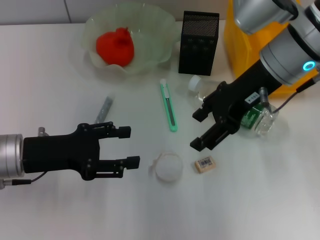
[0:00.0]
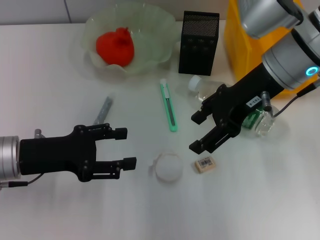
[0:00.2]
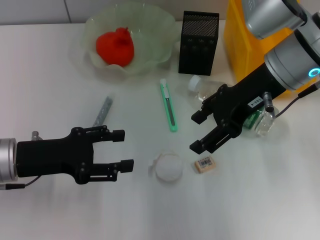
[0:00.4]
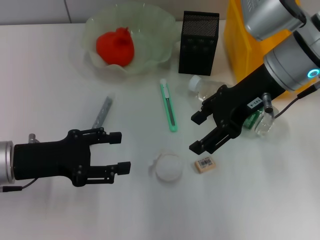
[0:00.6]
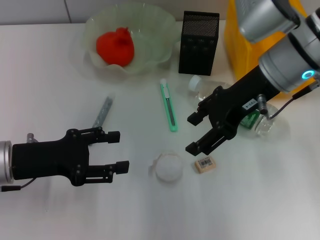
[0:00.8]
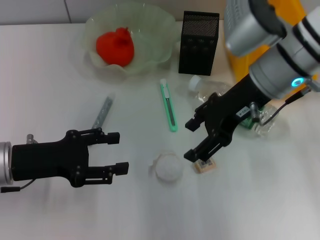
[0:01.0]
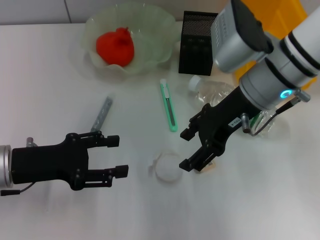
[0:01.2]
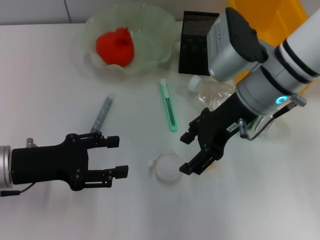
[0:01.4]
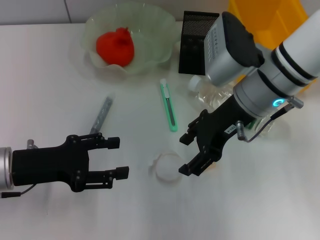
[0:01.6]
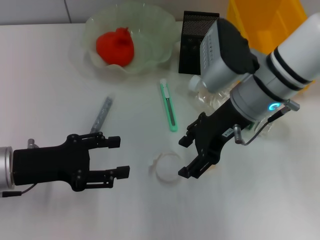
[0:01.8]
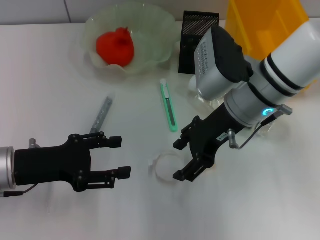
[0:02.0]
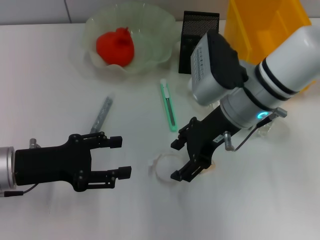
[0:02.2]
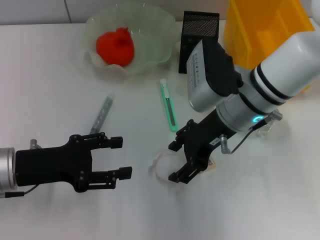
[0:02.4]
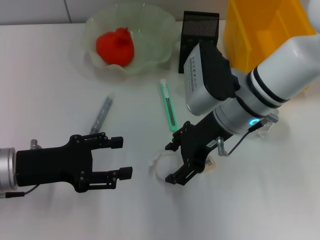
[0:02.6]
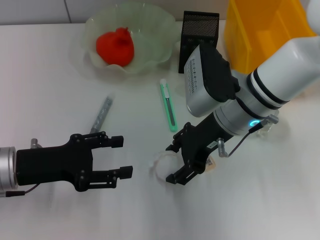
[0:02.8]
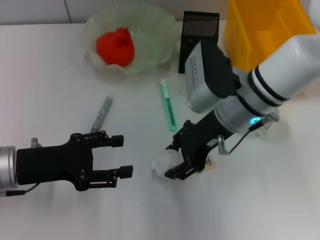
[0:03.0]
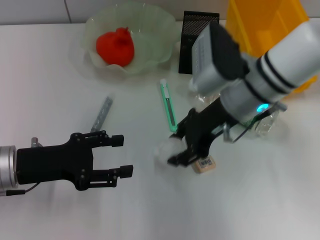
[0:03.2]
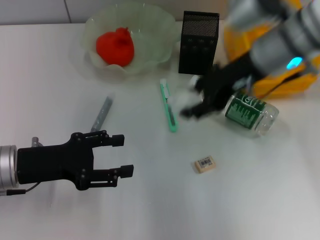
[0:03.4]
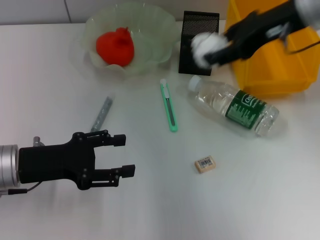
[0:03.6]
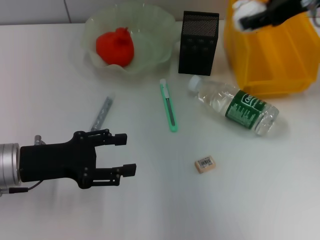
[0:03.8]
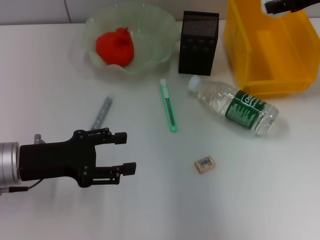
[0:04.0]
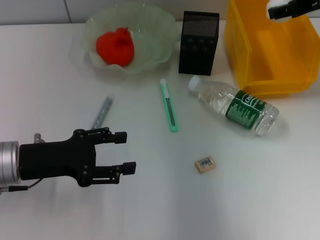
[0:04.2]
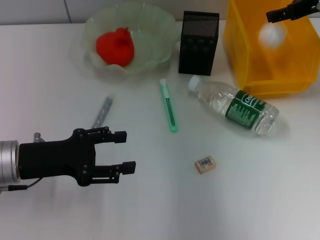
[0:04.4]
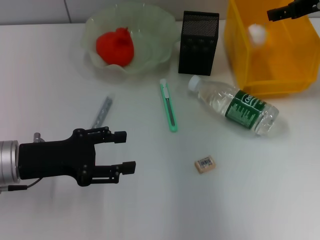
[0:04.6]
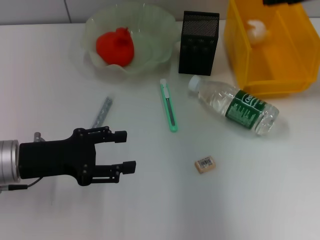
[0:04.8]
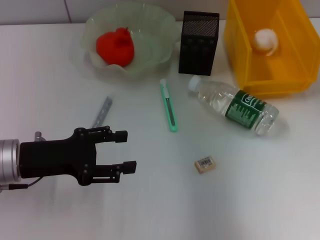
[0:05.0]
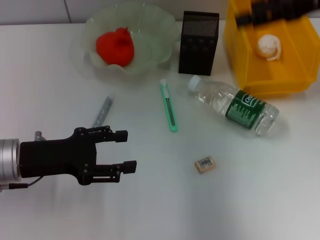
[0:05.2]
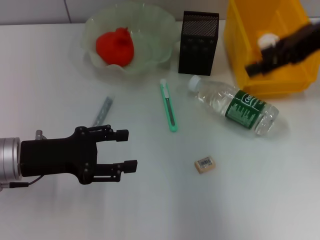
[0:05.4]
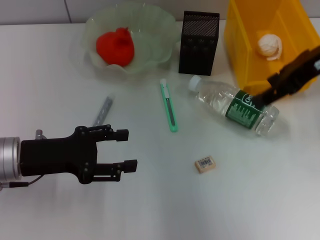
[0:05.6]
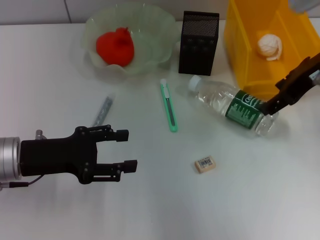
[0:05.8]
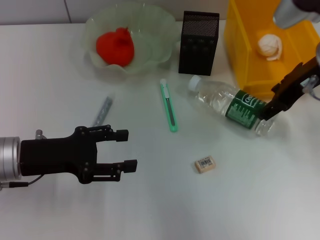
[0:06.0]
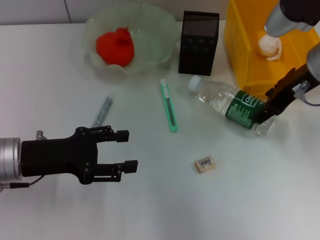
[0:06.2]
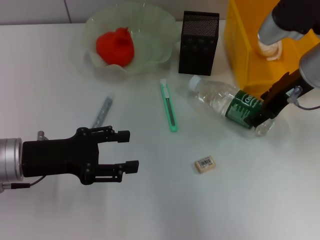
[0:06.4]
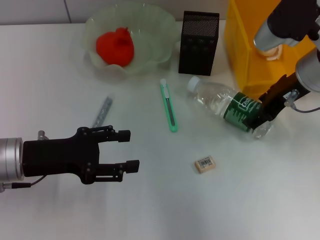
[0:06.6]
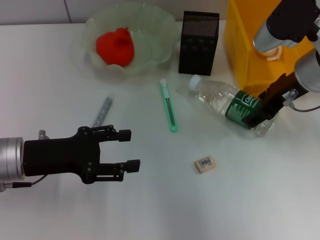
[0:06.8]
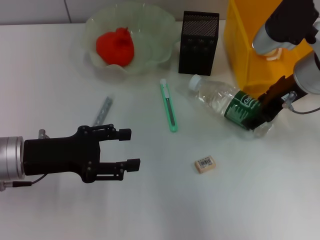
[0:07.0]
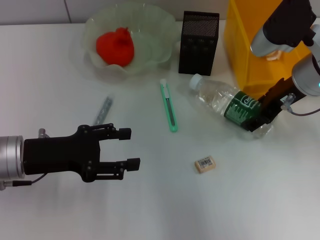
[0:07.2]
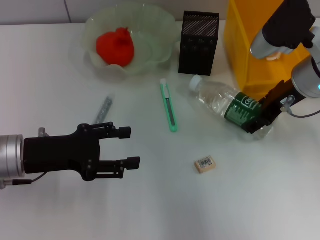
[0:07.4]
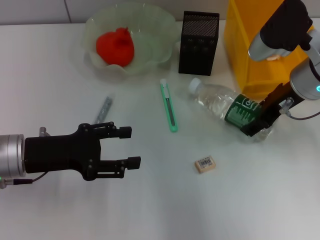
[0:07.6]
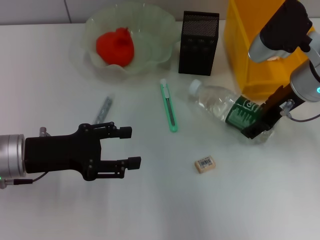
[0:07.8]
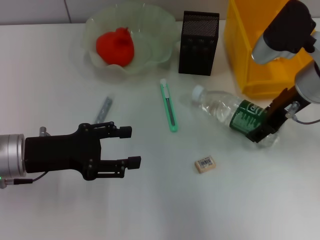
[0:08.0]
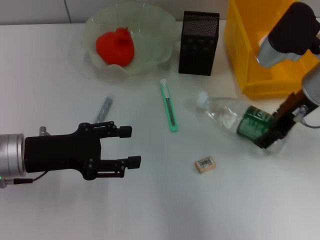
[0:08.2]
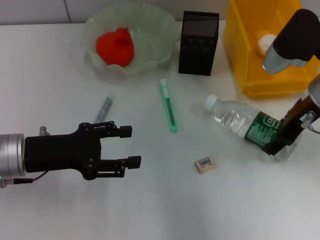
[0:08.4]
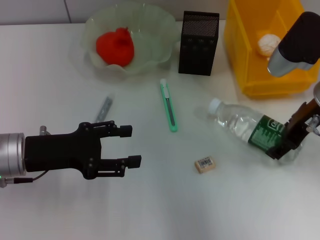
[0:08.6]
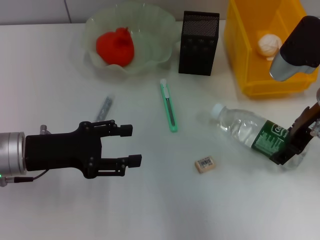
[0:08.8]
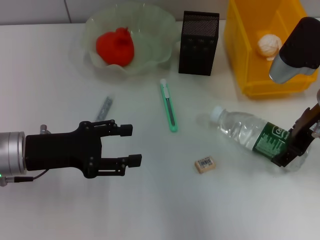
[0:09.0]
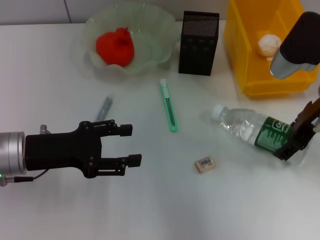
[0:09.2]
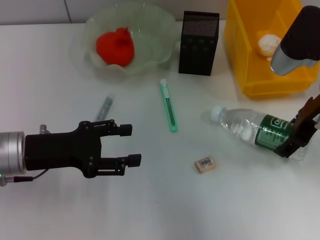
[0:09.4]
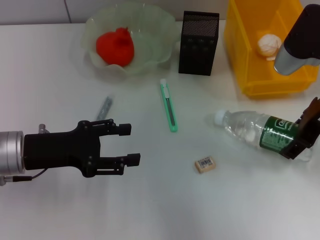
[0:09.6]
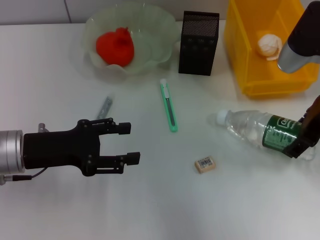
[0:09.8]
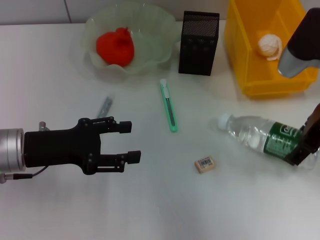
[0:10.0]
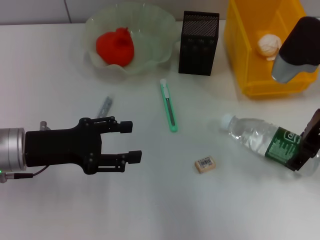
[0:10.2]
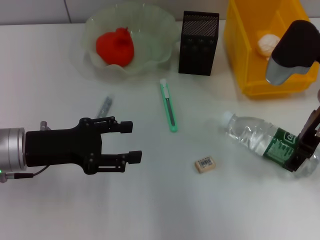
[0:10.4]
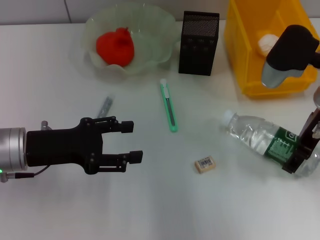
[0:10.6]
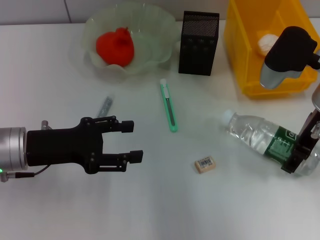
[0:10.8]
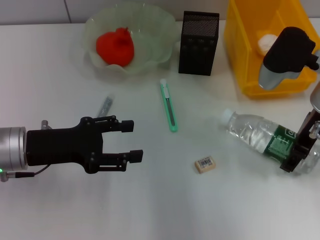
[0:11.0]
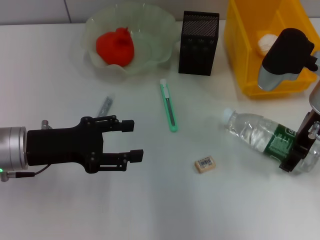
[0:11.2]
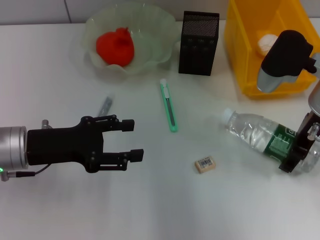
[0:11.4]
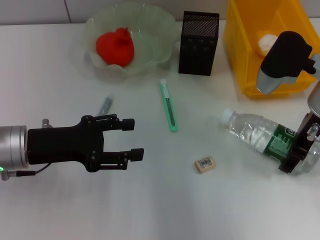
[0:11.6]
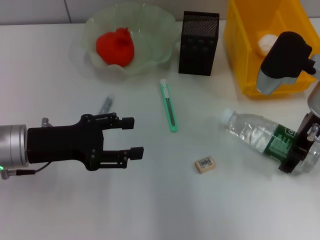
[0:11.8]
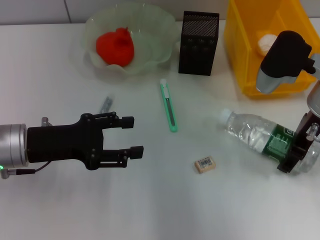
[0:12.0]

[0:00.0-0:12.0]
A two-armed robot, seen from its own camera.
Step, 0:00.0 to 0:02.8: Grab the paper ball with the right hand.
Step, 0:03.0 to 0:07.2: Place the paper ball into the trash can with the right hand.
Step, 0:07.4 to 0:07.6: Grab the water bottle with the right hand.
0:00.0 to 0:01.6: The right gripper shifts by about 5 cm.
0:01.6 to 0:03.0: The grippers make only small movements.
0:03.0 to 0:04.4: The right gripper shifts some 20 cm to the right, upward and forward.
0:04.4 to 0:06.0: The right gripper shifts some 10 cm backward and to the left.
0:06.0 to 0:07.6: The right gripper moves downward, approximately 5 cm.
0:07.6 to 0:12.0: There are only small adjustments of the grippers.

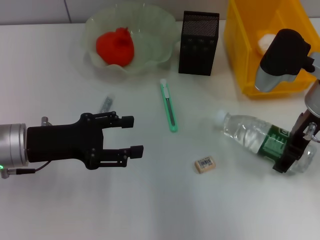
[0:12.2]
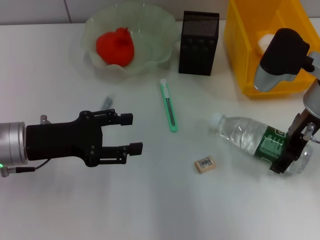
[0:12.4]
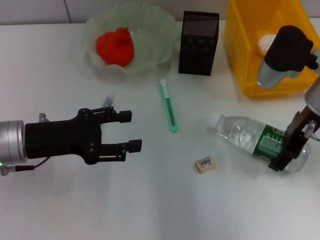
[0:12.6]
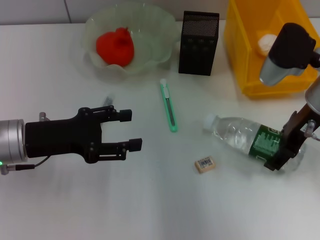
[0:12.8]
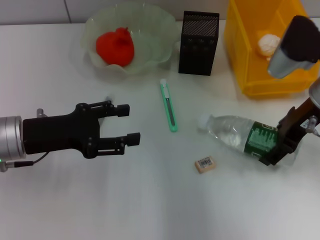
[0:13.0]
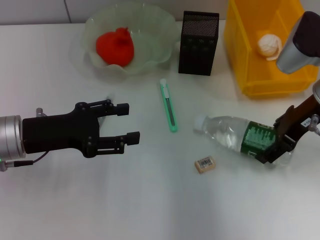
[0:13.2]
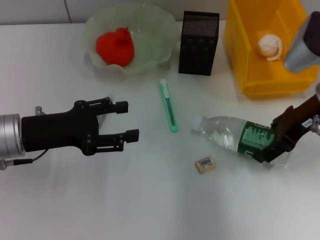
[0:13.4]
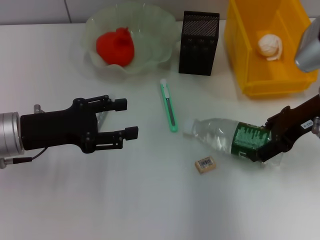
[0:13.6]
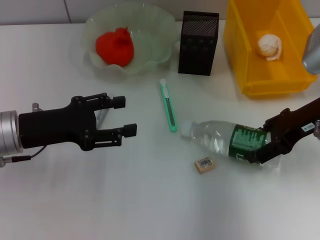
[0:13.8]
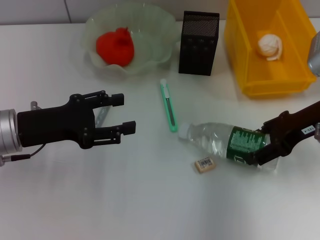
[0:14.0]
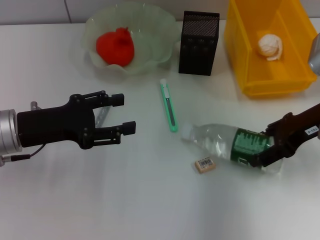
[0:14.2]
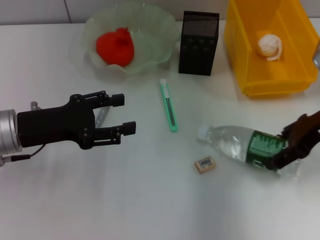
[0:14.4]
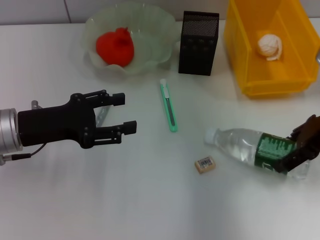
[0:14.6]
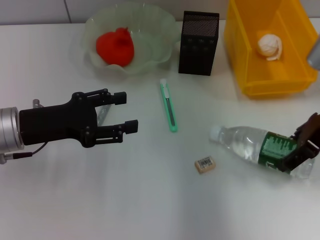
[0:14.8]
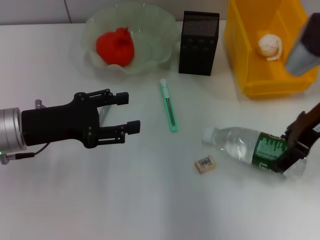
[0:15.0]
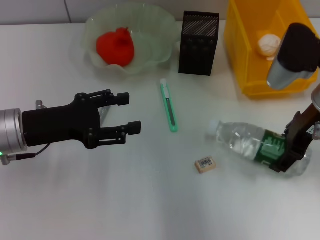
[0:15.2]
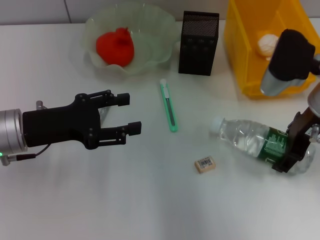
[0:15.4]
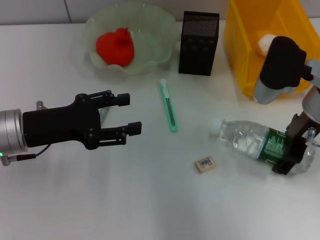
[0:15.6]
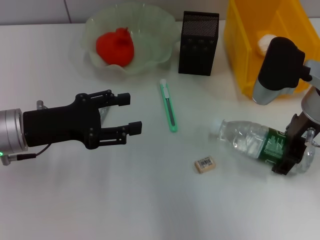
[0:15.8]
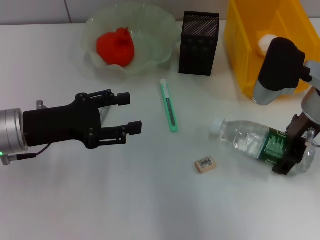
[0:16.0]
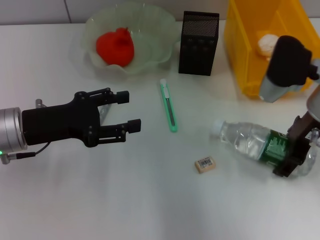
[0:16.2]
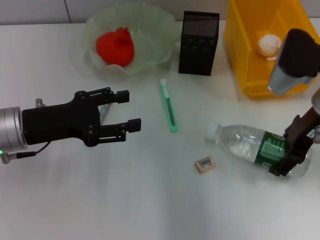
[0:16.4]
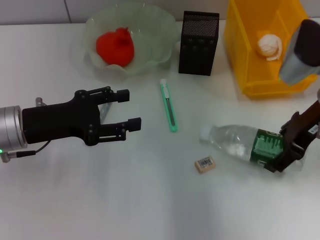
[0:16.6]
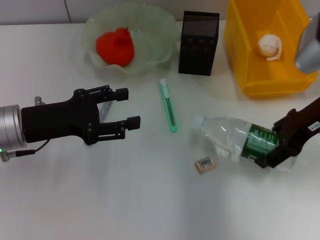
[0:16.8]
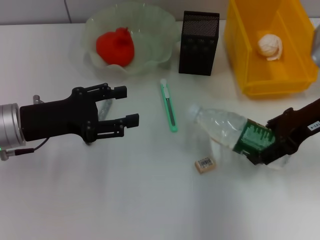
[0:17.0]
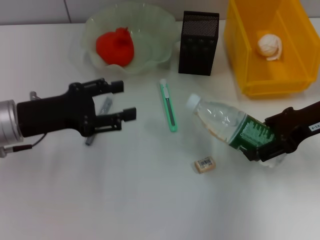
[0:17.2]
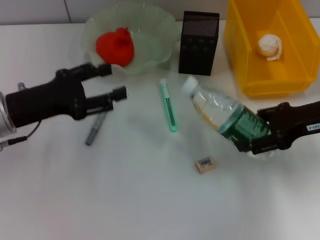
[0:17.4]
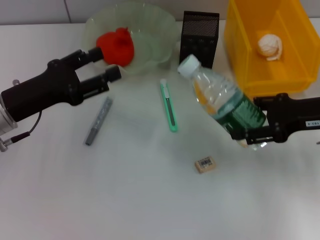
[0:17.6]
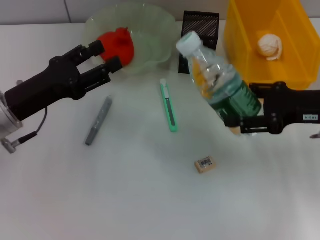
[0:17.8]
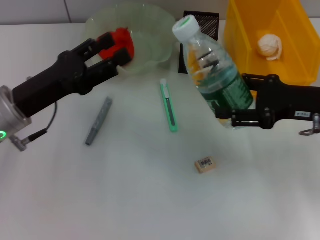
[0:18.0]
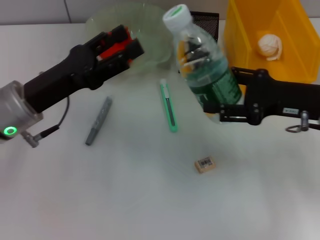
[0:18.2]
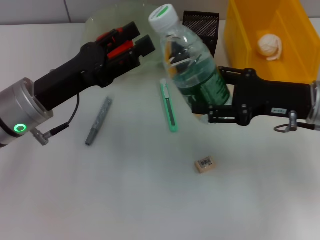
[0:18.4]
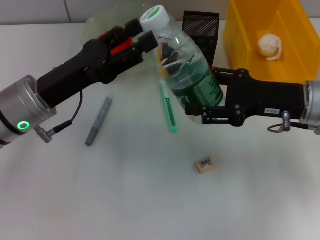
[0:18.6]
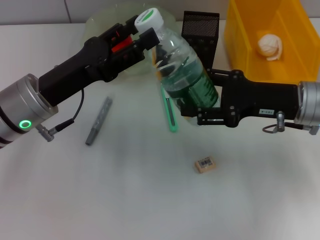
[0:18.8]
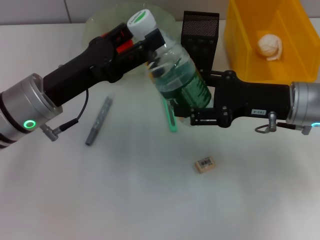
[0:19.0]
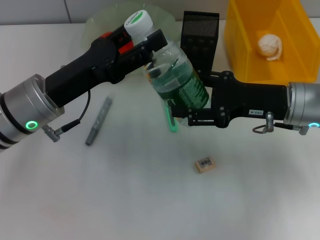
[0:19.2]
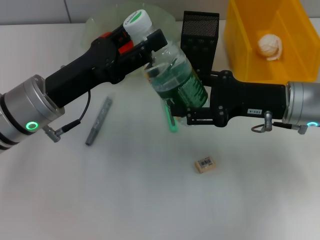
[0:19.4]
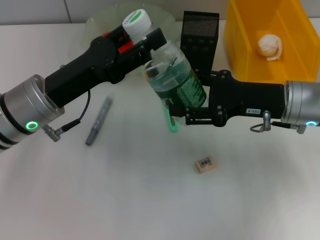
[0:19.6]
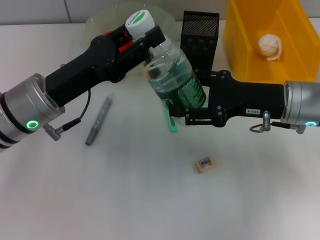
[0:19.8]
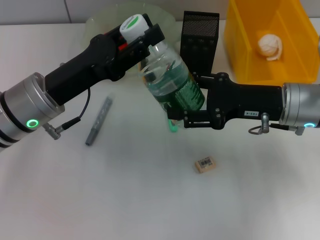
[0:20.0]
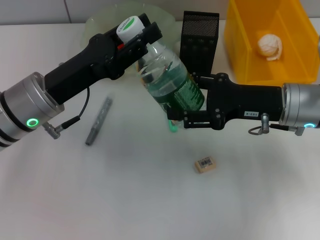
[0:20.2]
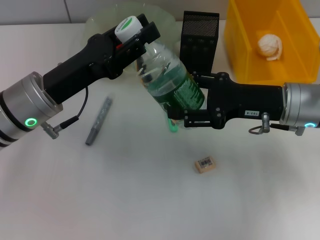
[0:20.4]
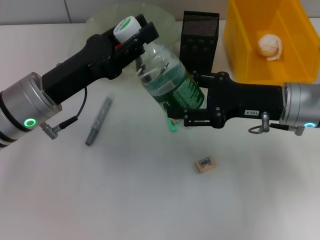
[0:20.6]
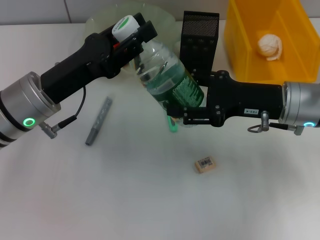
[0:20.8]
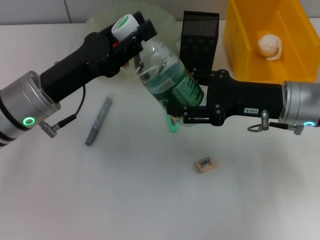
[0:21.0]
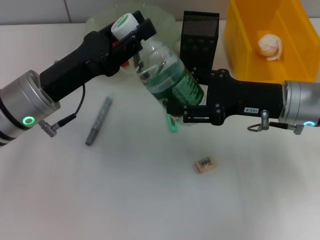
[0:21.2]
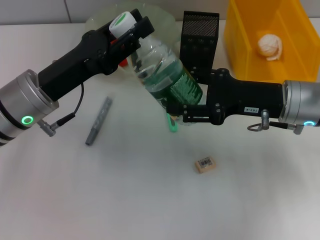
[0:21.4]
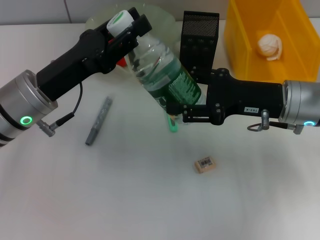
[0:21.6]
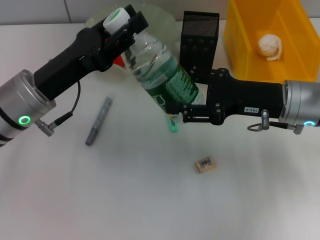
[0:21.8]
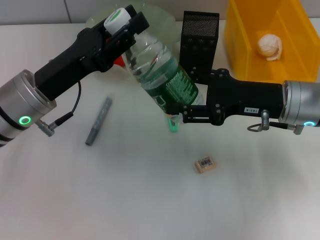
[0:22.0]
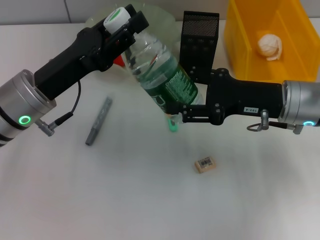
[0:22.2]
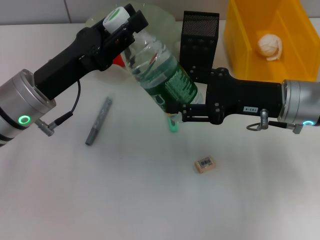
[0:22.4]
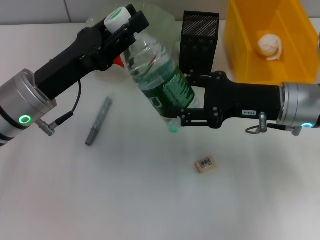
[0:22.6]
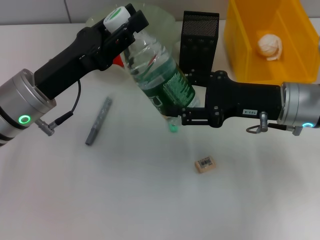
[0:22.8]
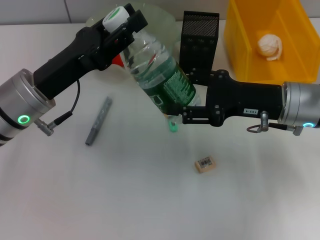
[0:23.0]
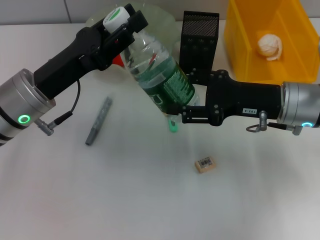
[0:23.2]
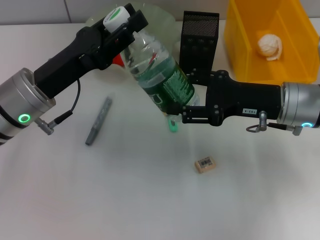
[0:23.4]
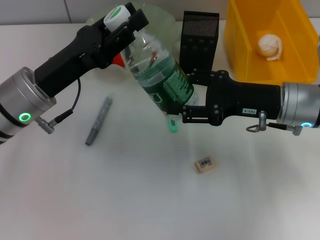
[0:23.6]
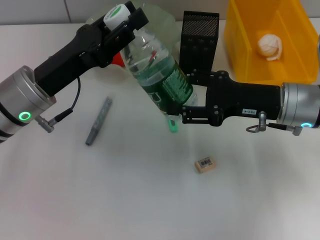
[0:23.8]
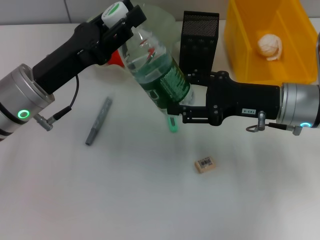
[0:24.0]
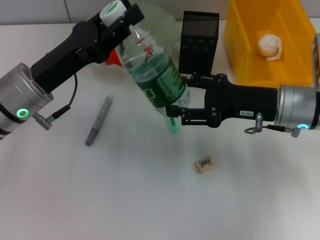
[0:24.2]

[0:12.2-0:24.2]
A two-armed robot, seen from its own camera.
0:15.2 to 0:16.6: The grippers make only small movements.
0:16.6 to 0:18.2: The right gripper ends up about 5 cm from where it was.
0:18.2 to 0:19.8: The grippers move only a little.
0:19.8 to 0:22.6: The two grippers keep their place.
0:22.6 to 0:24.2: Neither gripper changes place.
